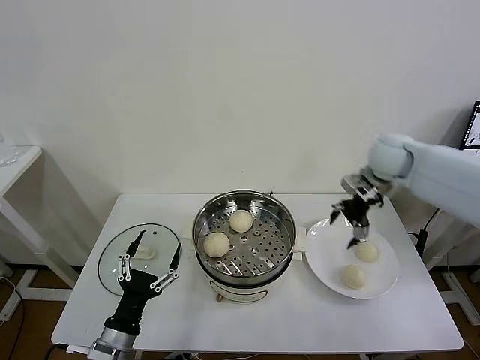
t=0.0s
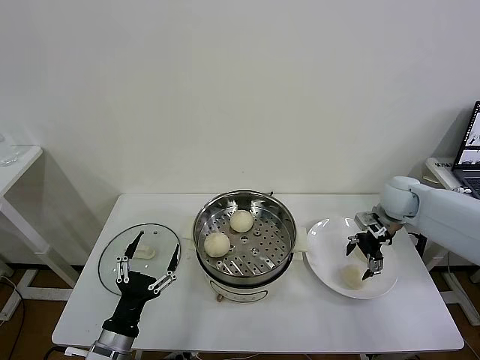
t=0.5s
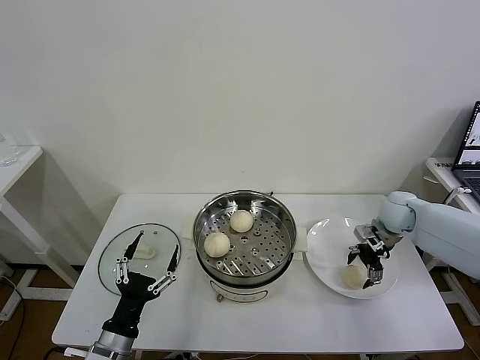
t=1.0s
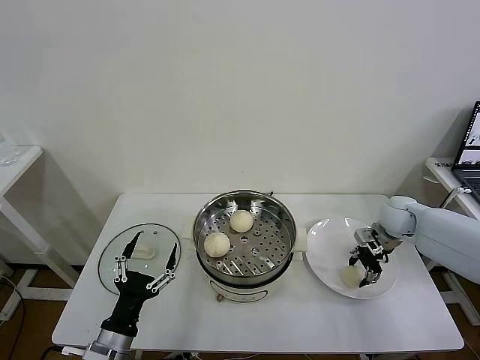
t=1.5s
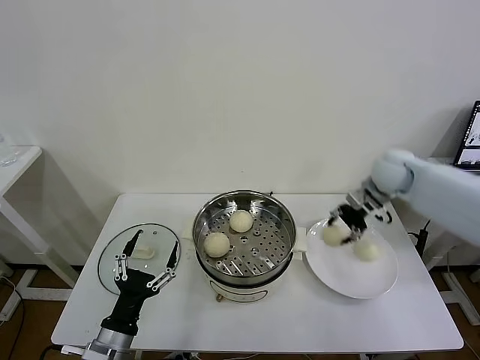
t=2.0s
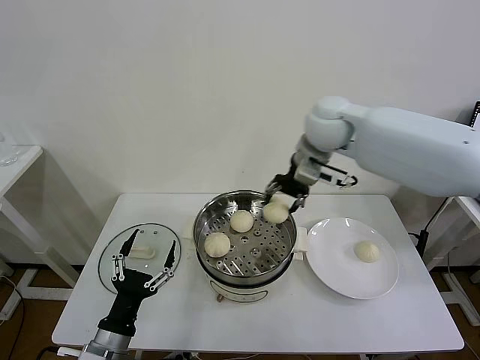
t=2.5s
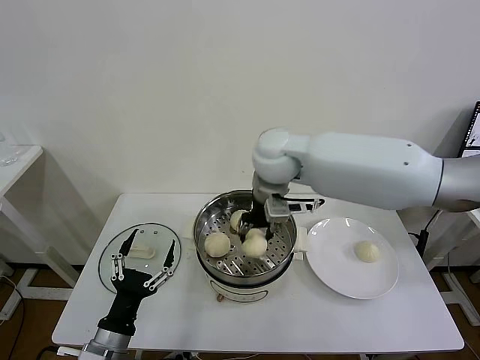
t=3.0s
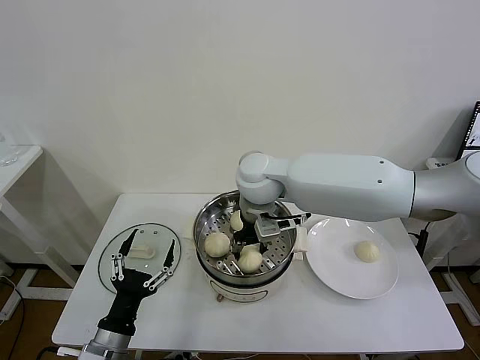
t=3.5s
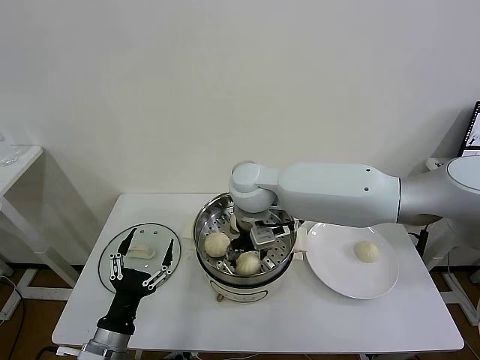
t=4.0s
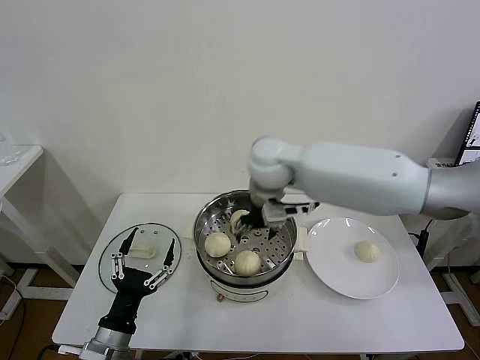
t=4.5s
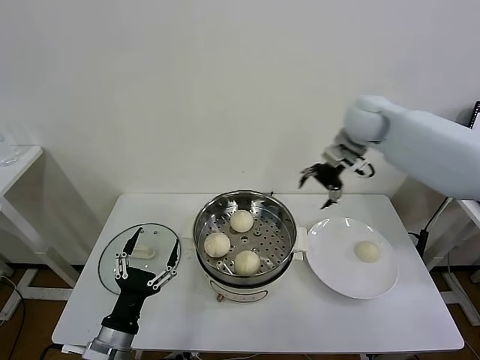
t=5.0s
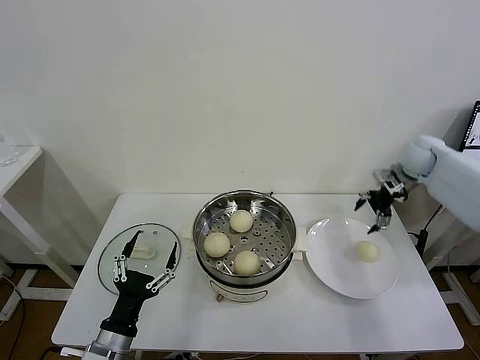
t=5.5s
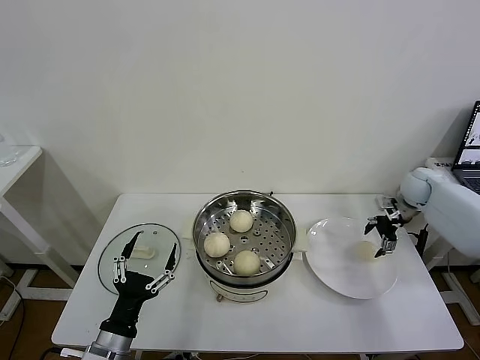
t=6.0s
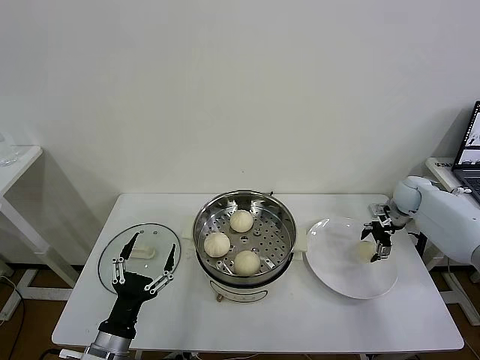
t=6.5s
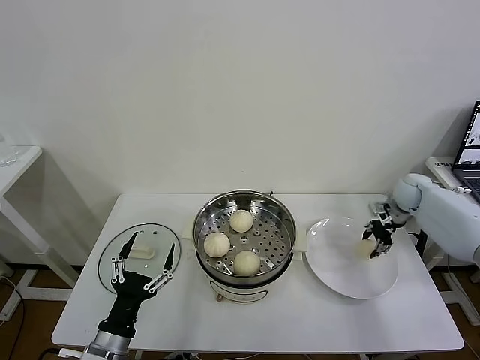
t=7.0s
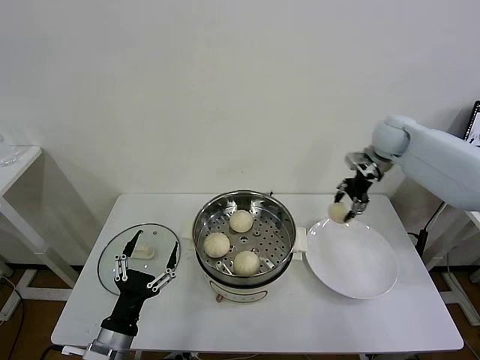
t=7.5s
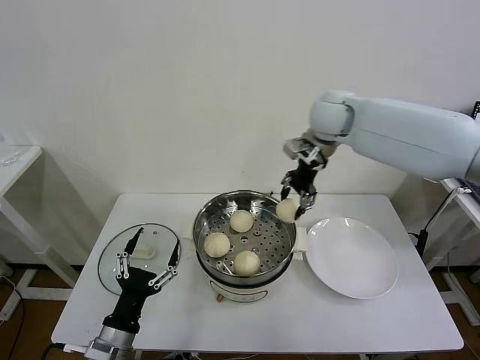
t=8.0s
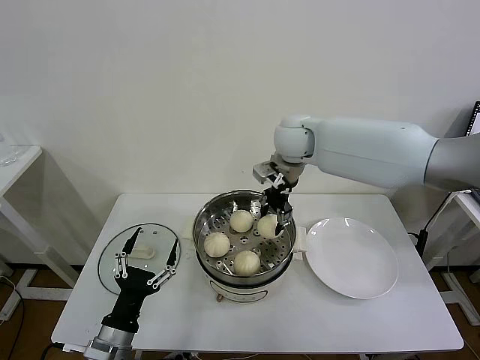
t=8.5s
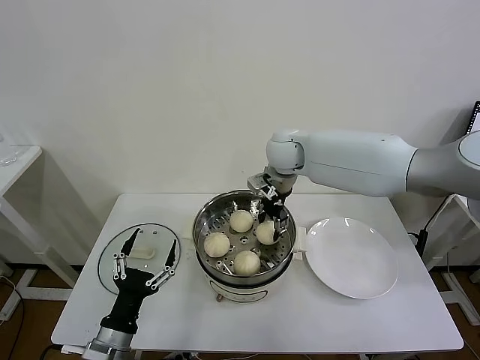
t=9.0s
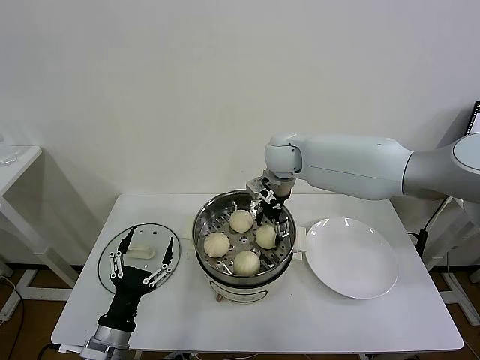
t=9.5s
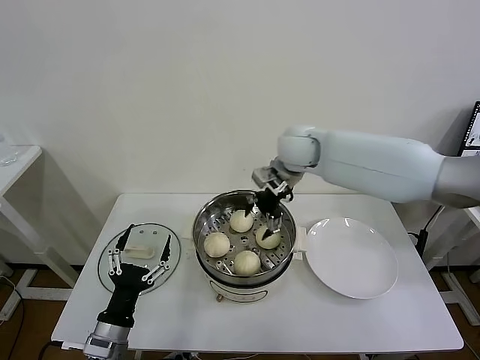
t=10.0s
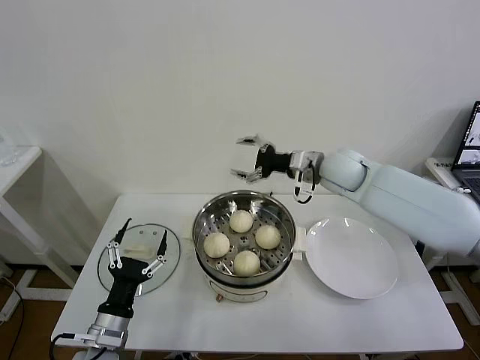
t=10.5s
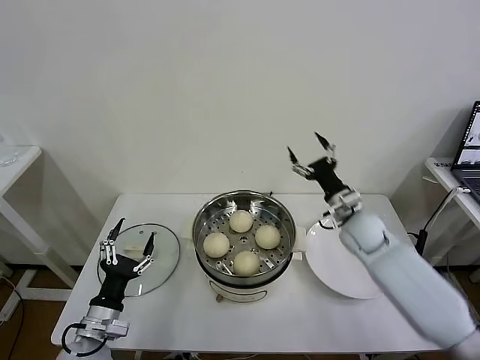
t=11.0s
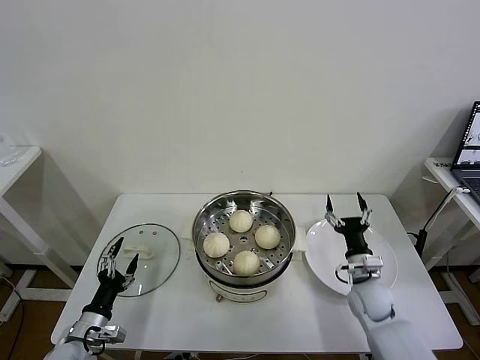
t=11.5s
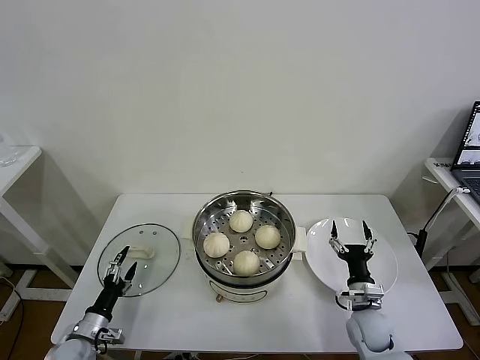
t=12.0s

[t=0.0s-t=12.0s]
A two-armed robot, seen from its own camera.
Task of the whole recording: take steamed baozi put them in steamer then cover it.
Step, t=2.0s to t=4.0s: Place the baozi on the steamer with right gripper.
Step, t=4.5s to t=6.5s: Grasp the baozi in the plate with right gripper.
Step, t=7.0s to t=9.5s: Place the baozi on the steamer with right gripper.
t=0.0s to t=2.0s: The right gripper reaches some 15 cm downward, then returns, and closes its fingers.
t=2.0s to t=4.0s: The right gripper travels to the left by some 30 cm, and opens up.
t=4.0s to t=6.0s: The right gripper heads to the right, covering some 50 cm.
t=6.0s to t=8.0s: The right gripper is displaced to the left and upward by roughly 35 cm, and closes.
t=8.0s to t=10.0s: The right gripper goes some 10 cm downward and to the left, and opens.
t=10.0s to t=12.0s: The left gripper moves downward, to the left and forward, about 20 cm; the right gripper moves downward, backward and to the right, roughly 50 cm.

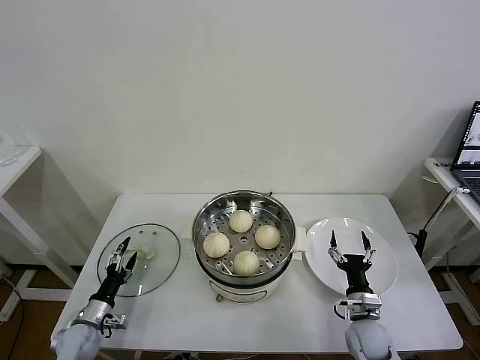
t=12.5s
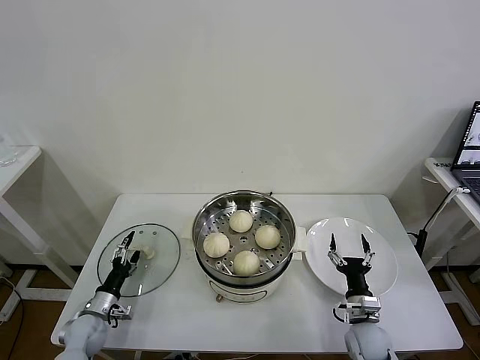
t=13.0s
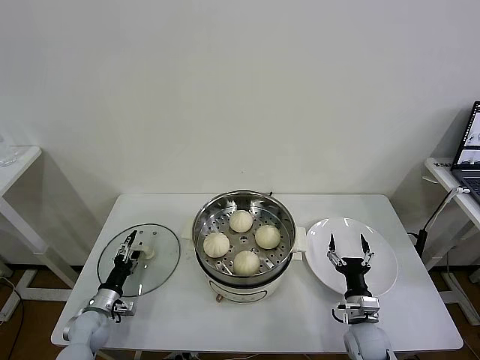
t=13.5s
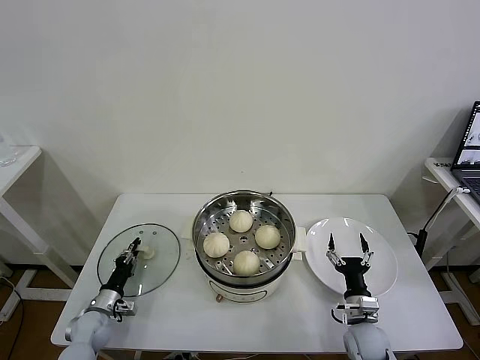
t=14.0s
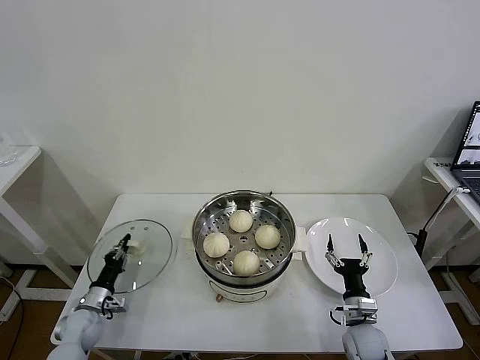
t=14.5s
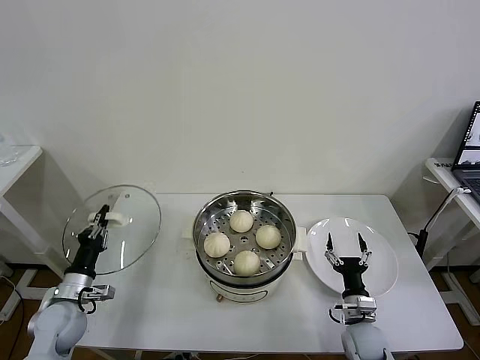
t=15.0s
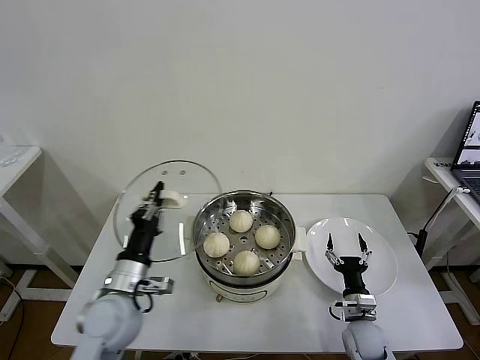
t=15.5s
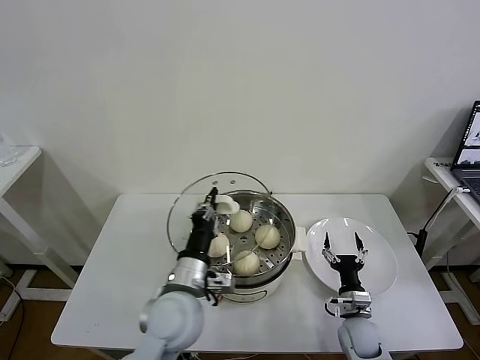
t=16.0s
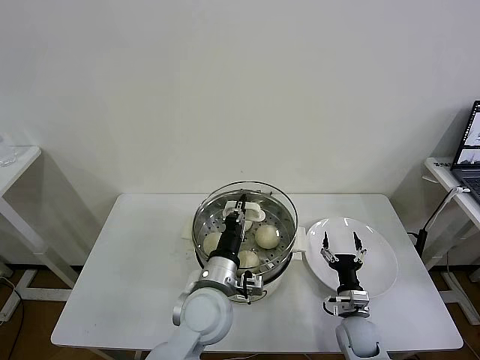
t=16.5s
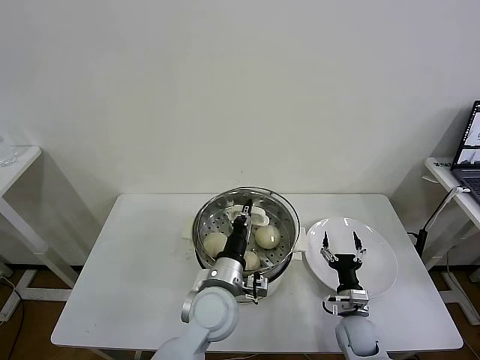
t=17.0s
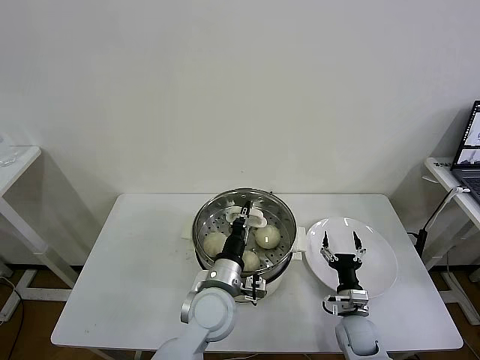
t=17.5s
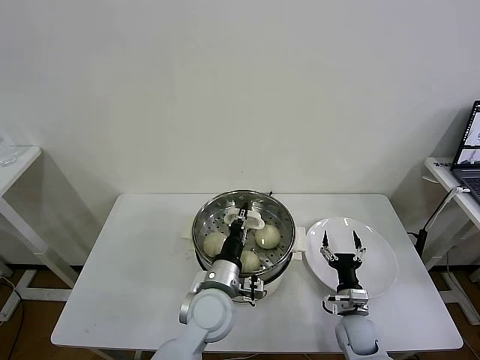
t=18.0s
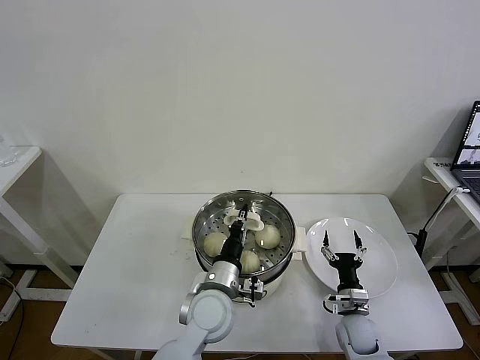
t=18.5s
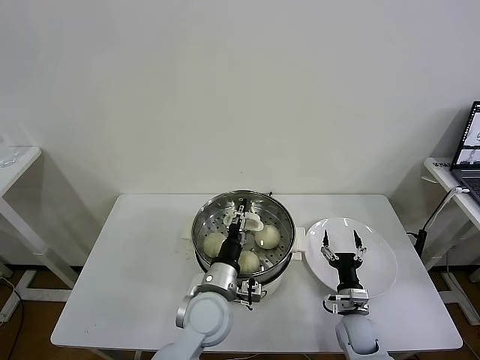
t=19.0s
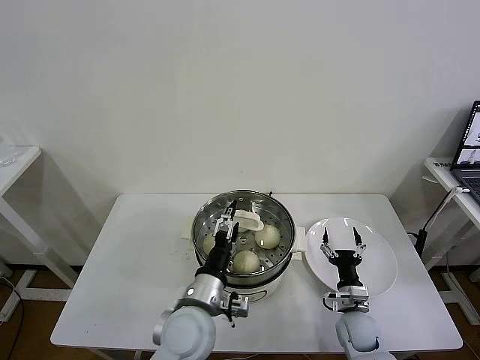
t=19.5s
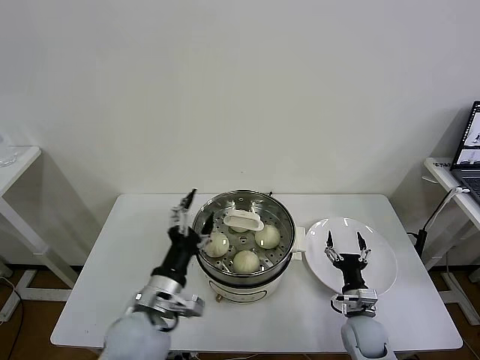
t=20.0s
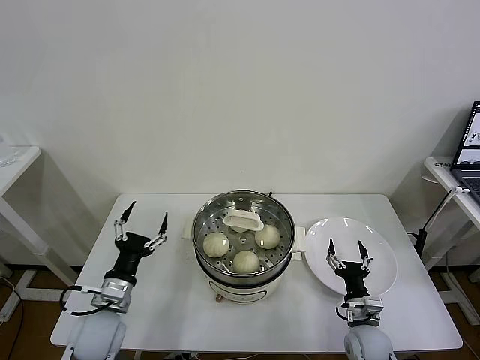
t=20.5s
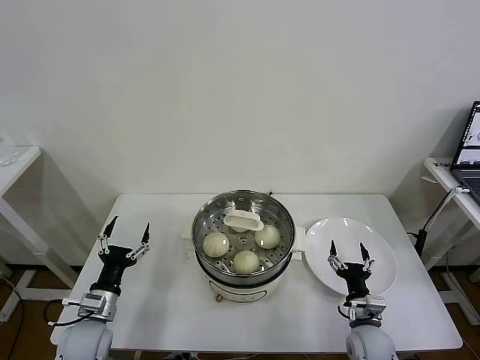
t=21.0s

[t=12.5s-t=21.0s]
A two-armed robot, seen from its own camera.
Task of the whole recording: take steamed baozi put them in steamer then cover it.
Step, t=14.5s to t=19.5s: Place the pot lid on the steamer with left gripper.
t=12.5s to t=14.5s: The left gripper closes its fingers.
t=14.5s to t=16.5s: The left gripper is displaced to the right and upward by approximately 40 cm.
t=16.5s to t=19.0s: The left gripper opens up.
t=19.0s to t=21.0s: The left gripper travels to the left by about 25 cm, and opens up.
